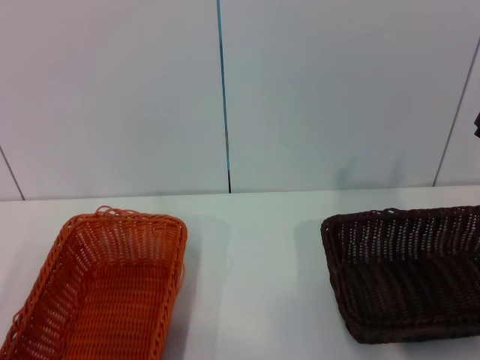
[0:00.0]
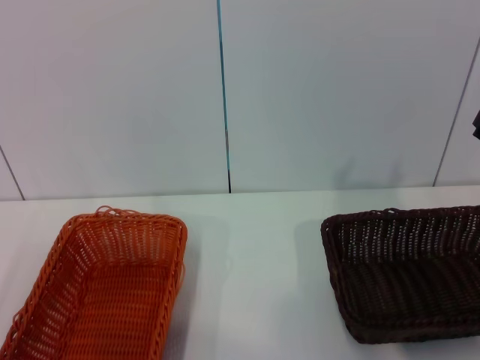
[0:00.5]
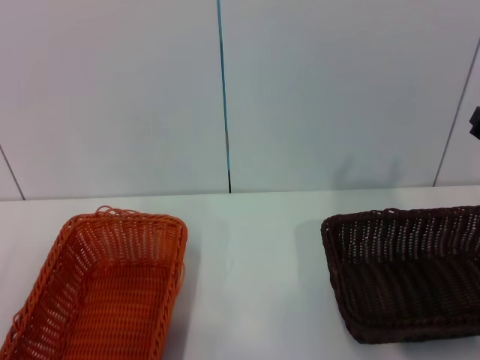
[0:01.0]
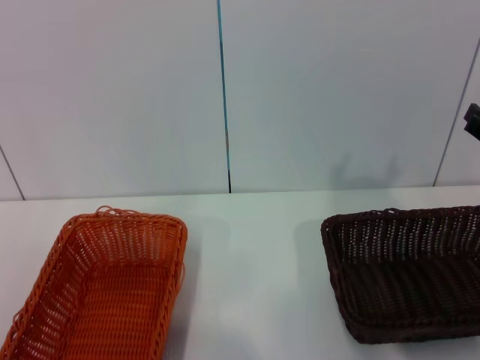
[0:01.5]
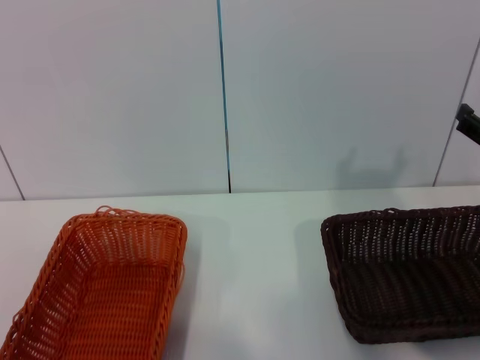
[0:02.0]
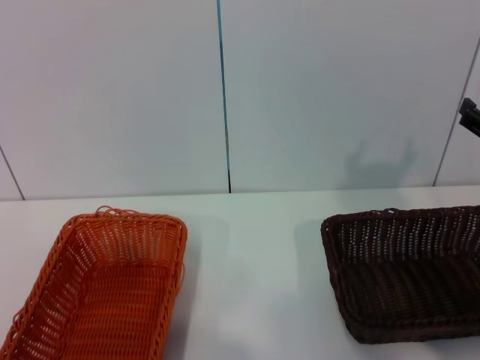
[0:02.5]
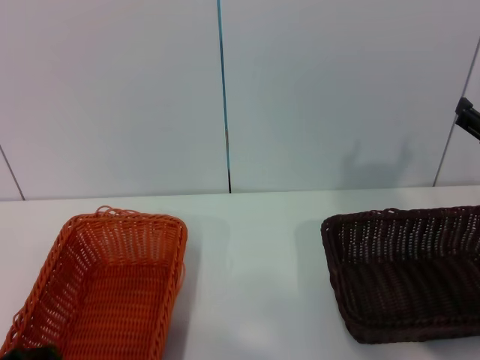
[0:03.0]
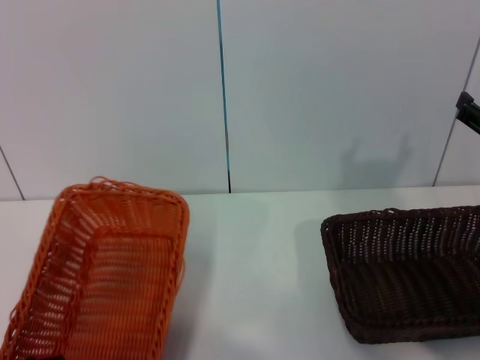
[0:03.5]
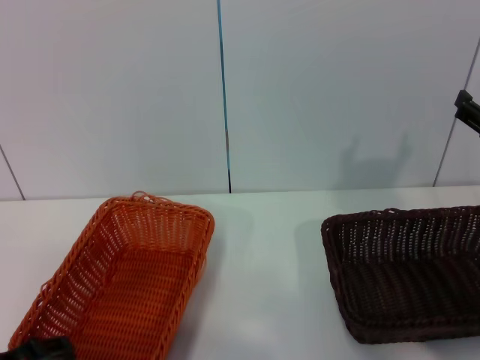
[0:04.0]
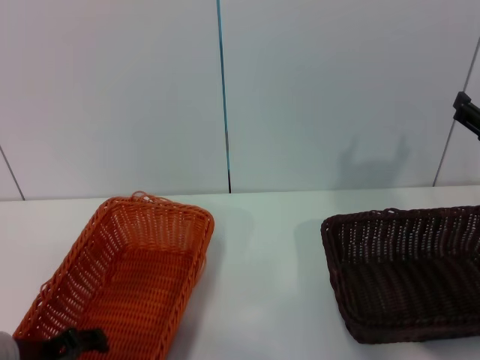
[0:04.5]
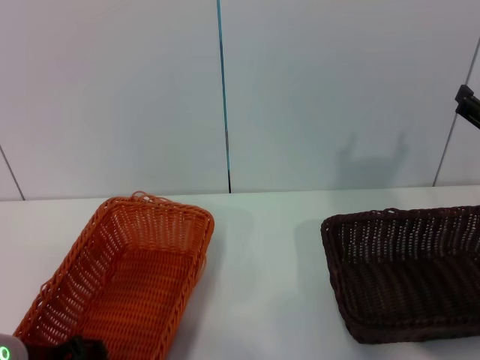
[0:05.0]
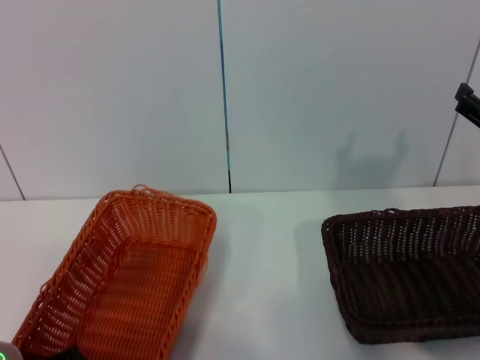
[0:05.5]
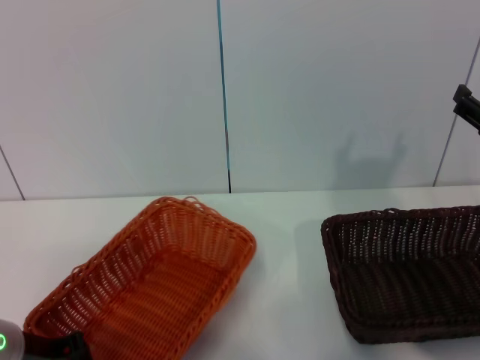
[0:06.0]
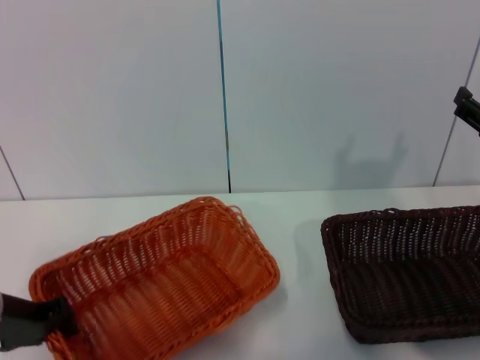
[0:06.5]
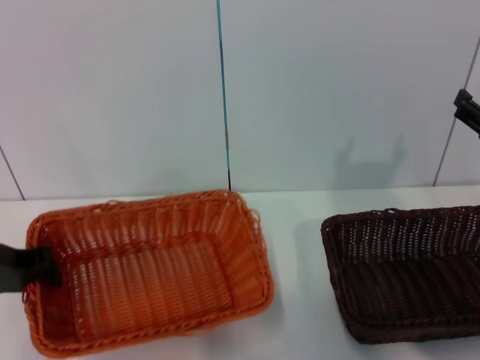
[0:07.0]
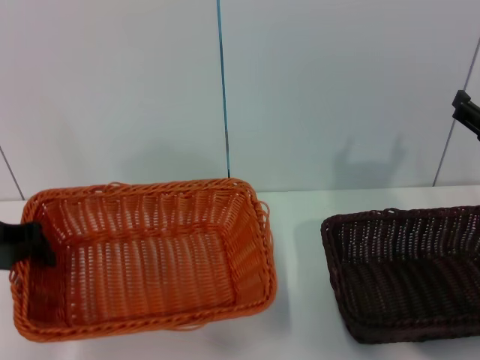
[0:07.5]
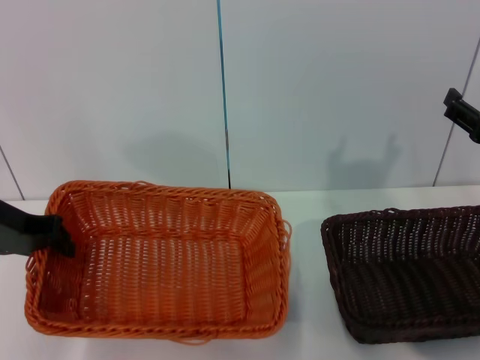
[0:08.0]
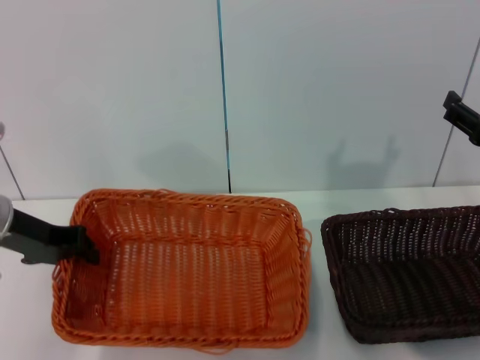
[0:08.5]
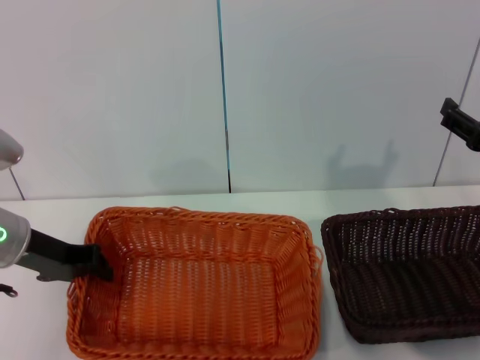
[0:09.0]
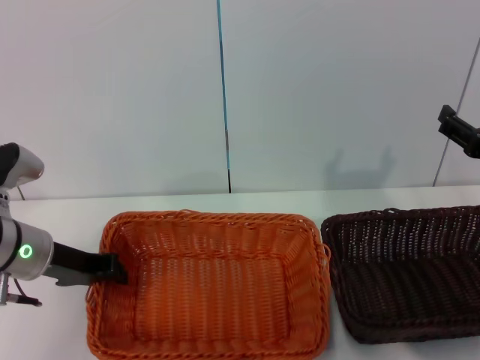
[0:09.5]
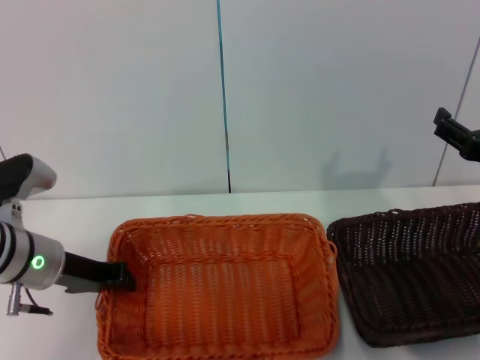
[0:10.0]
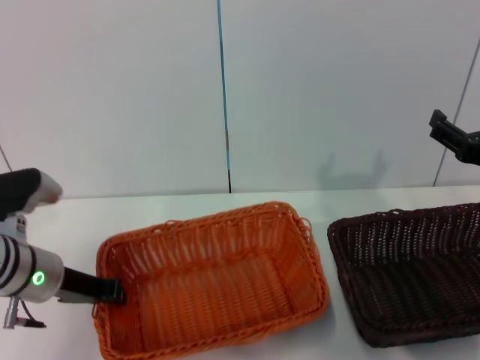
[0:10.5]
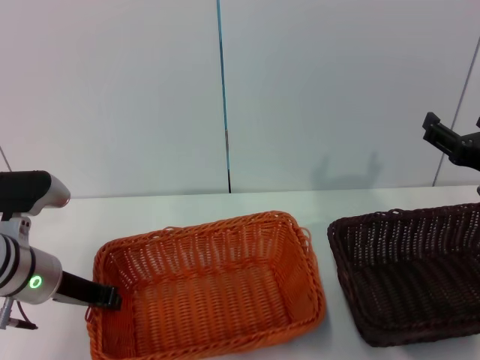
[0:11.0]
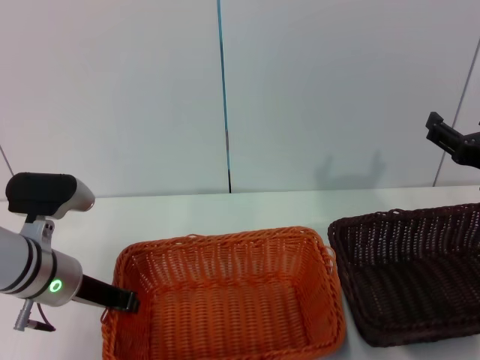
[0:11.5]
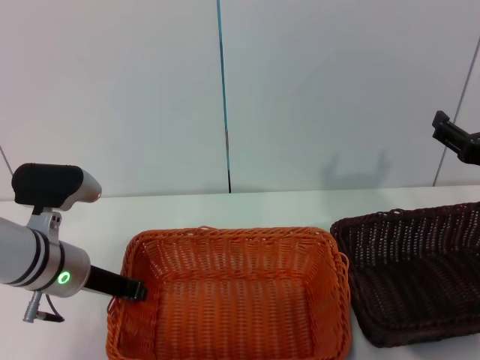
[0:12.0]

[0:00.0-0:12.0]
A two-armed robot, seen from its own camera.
Step, 0:00.0 to 0:06.0: Pick up the light basket with the left gripper.
0:02.0 to 0:04.0: The left gripper moves to the right, about 5 cm.
0:04.0 to 0:06.0: The left gripper is displaced forward by about 5 cm, and closes.
0:06.0 to 0:08.0: The left gripper is displaced forward and upward by approximately 15 cm.
0:08.0 to 0:10.0: The left gripper is displaced downward and to the right by some 10 cm.
0:10.0 to 0:12.0: The grippers stay close to where they were, moving slightly.

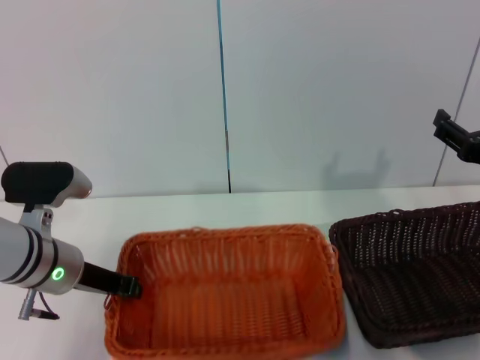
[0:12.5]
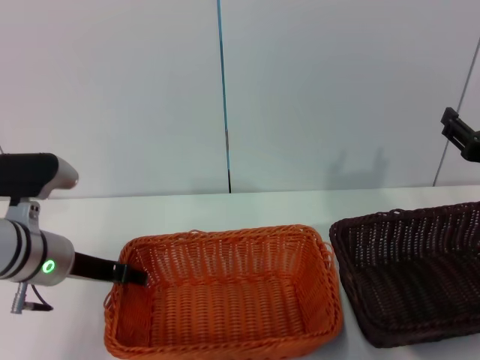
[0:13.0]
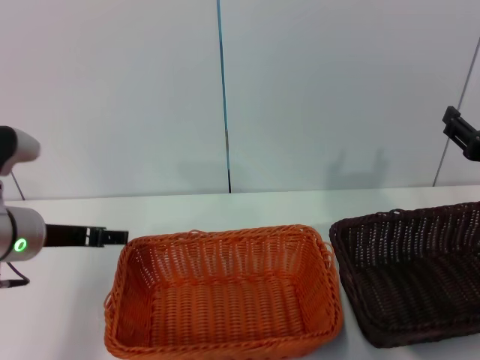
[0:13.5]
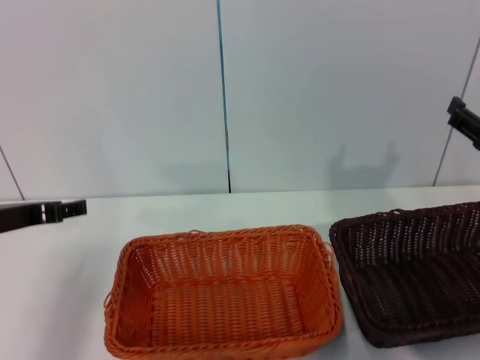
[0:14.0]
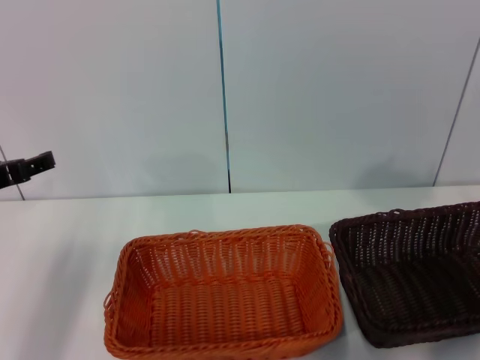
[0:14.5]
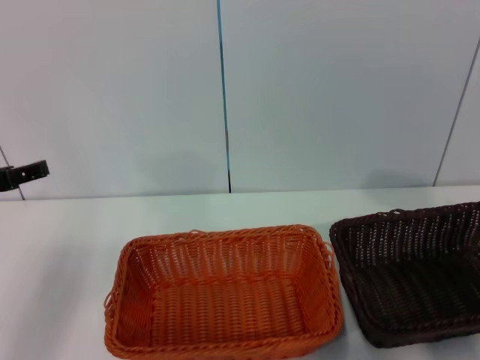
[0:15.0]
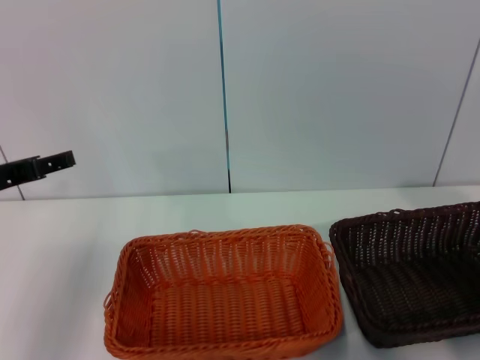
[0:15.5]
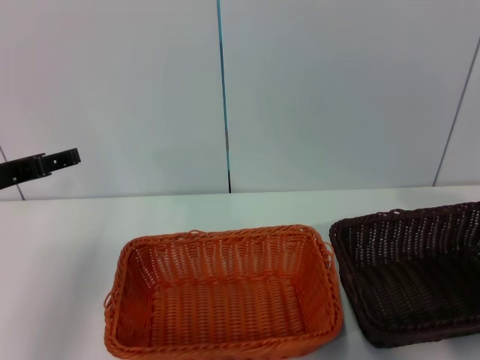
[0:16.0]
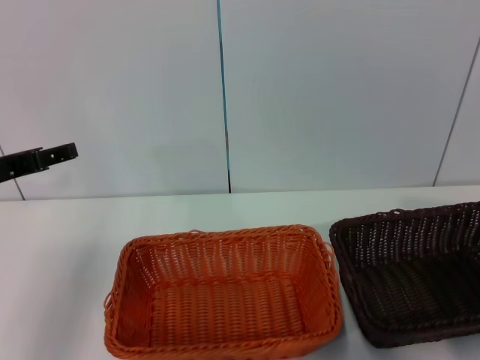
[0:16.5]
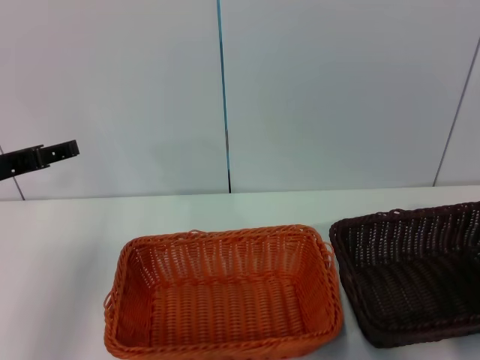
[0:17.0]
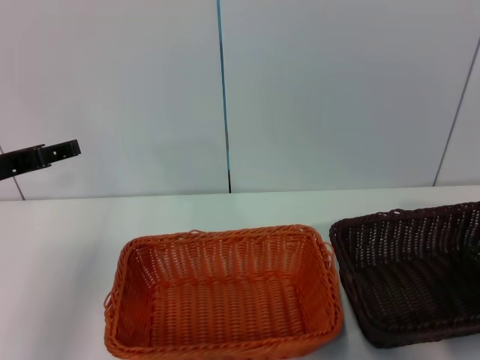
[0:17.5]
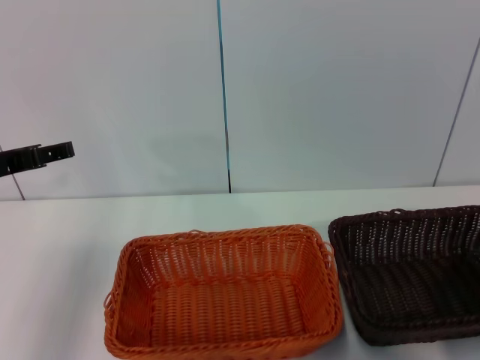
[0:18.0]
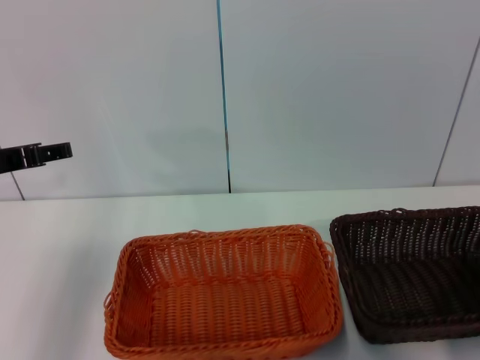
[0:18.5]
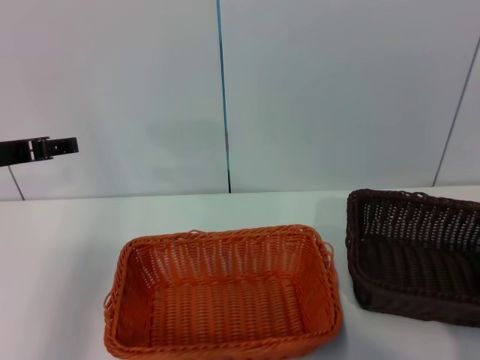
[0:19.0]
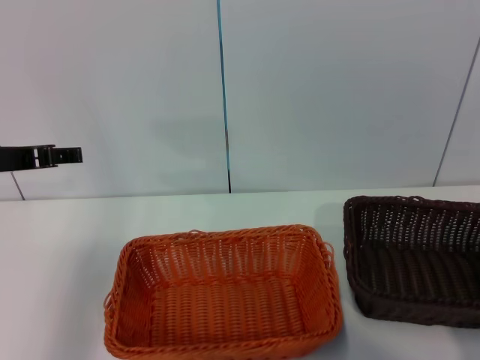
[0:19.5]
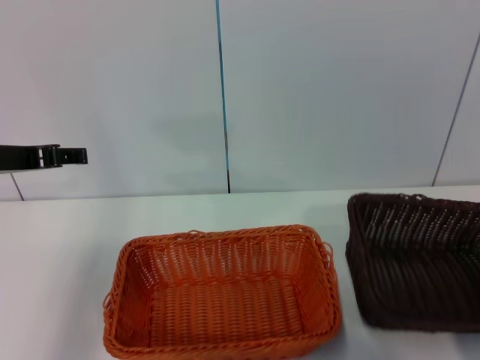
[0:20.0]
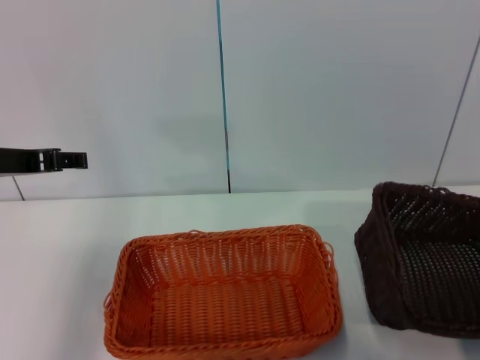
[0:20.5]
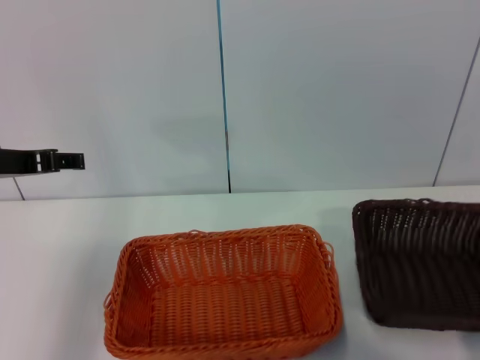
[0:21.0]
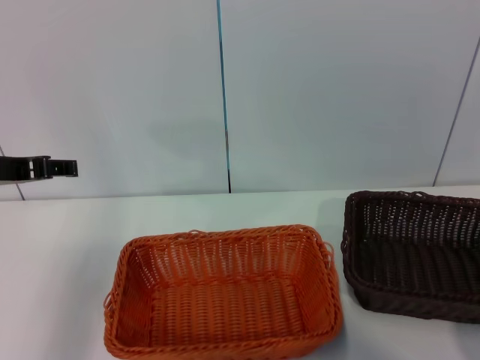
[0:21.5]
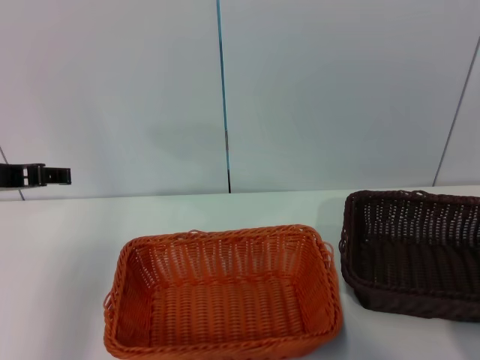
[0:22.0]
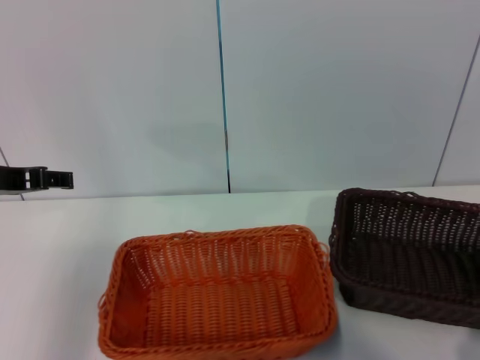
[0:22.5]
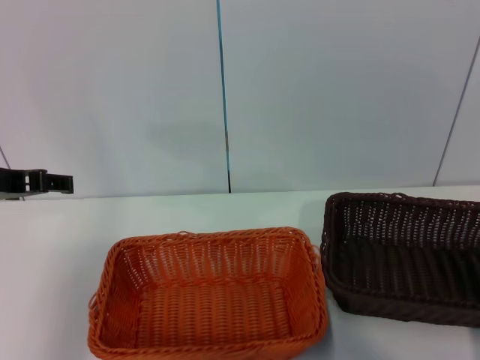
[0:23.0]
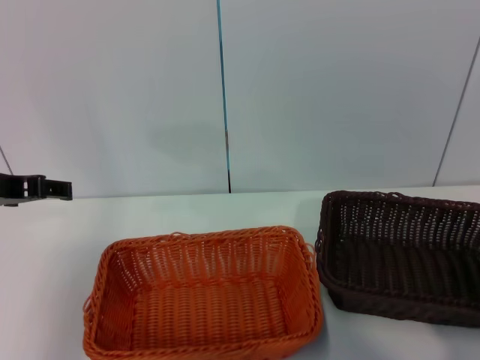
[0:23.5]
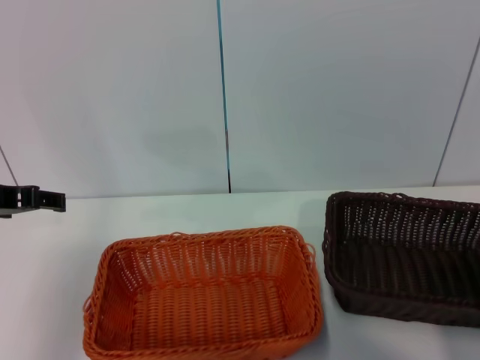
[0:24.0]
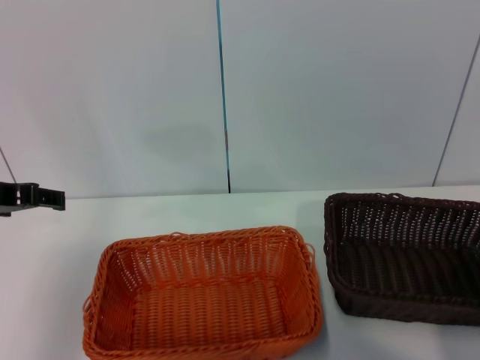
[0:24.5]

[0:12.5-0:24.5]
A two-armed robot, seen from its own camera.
Step, 0:13.0 to 0:19.0: Pick up the dark basket with the right gripper.
0:12.5 to 0:14.5: The left gripper travels to the left and upward by approximately 10 cm, and opens up, while the right gripper moves some 5 cm.
0:16.5 to 0:18.5: The right gripper is displaced downward by some 5 cm.
0:18.5 to 0:20.5: The right gripper closes.
0:20.5 to 0:22.5: The right gripper closes.
0:22.5 to 0:24.5: The right gripper opens up.

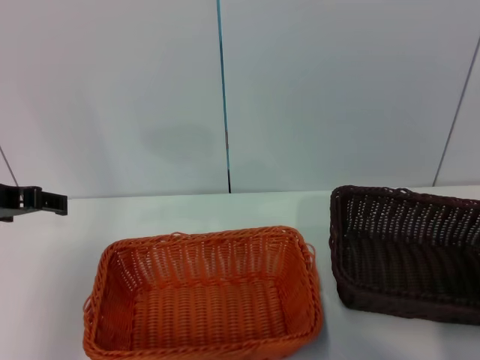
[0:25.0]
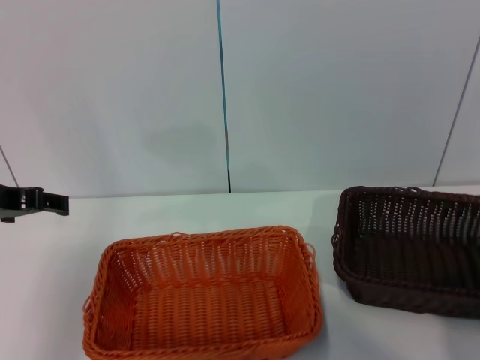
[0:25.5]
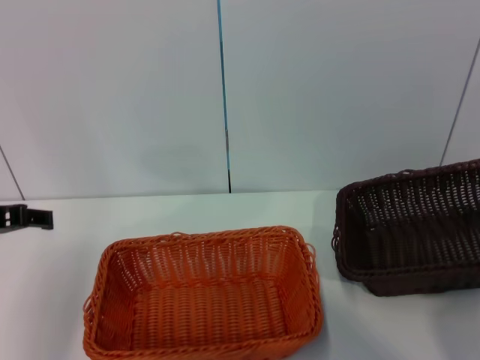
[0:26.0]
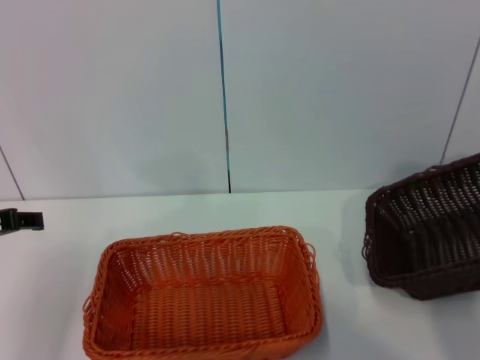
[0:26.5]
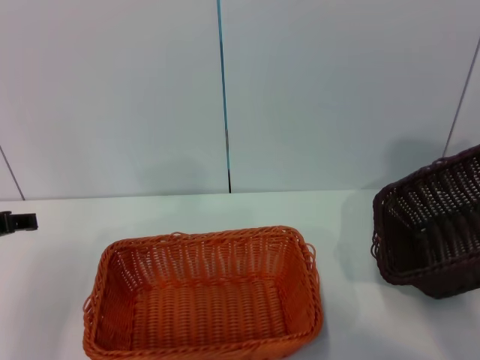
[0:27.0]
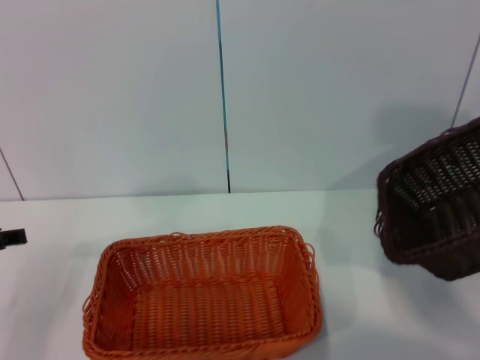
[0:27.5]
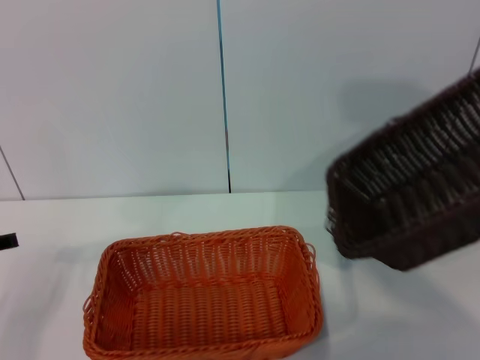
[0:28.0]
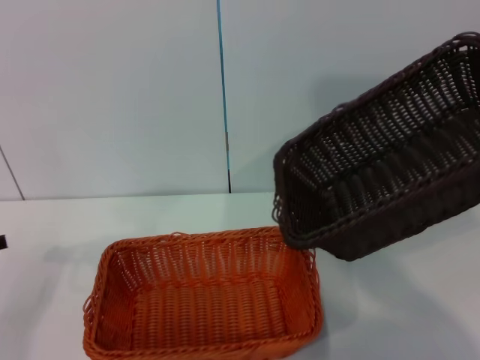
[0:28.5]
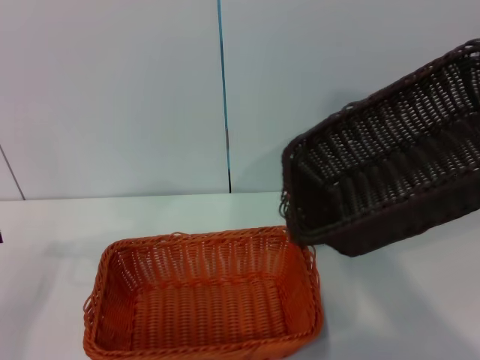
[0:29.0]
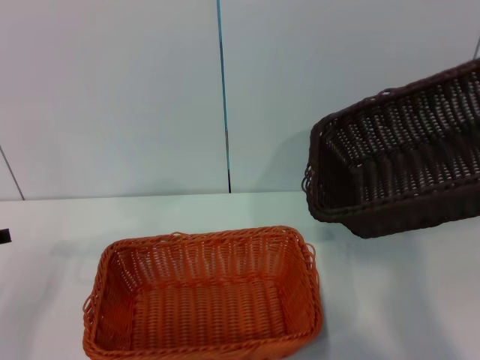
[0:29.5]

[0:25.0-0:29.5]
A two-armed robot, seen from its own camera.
0:25.0 to 0:27.0: The right gripper is displaced upward by roughly 15 cm; the left gripper changes place by some 5 cm.
0:27.0 to 0:29.5: The right gripper goes roughly 5 cm to the left.
